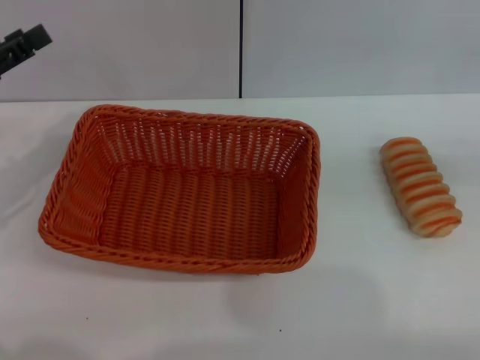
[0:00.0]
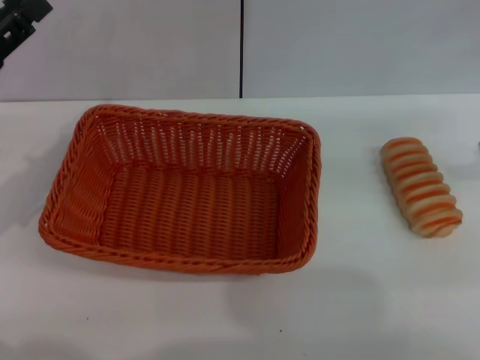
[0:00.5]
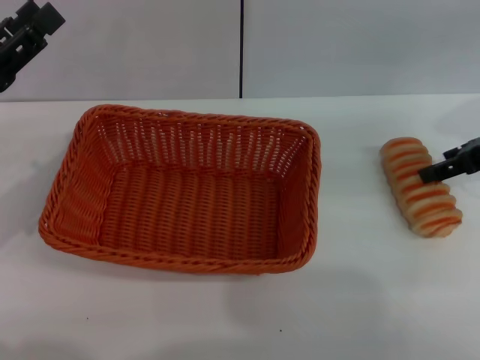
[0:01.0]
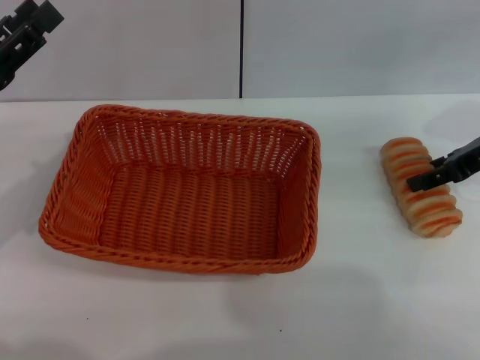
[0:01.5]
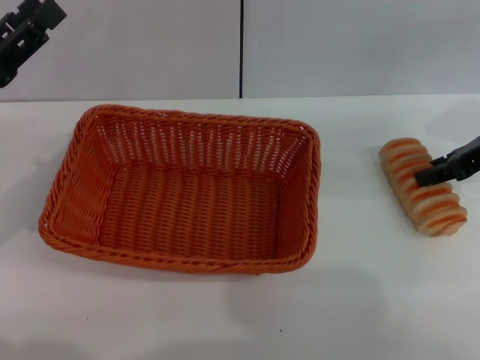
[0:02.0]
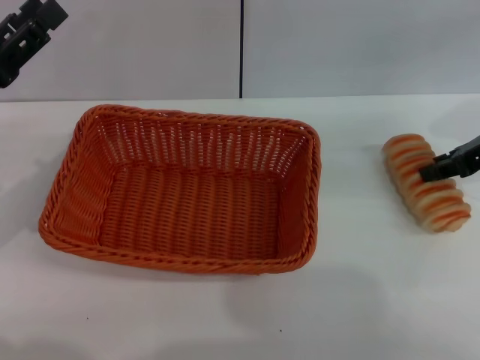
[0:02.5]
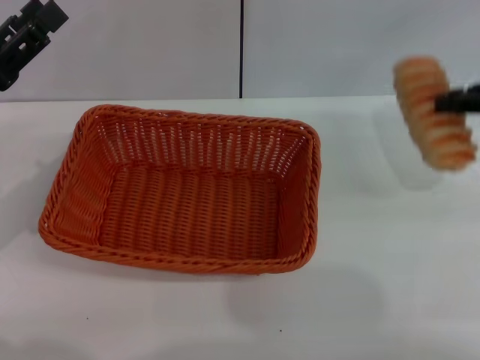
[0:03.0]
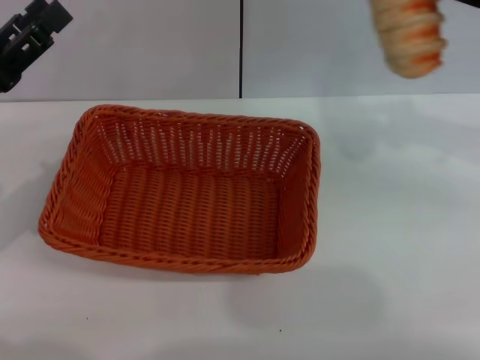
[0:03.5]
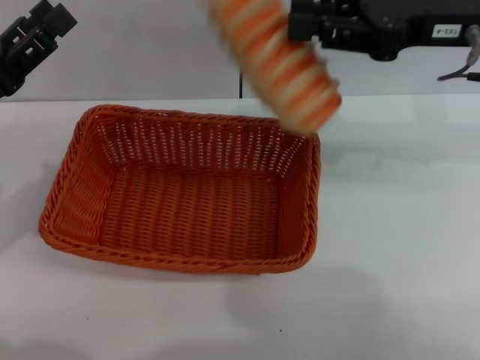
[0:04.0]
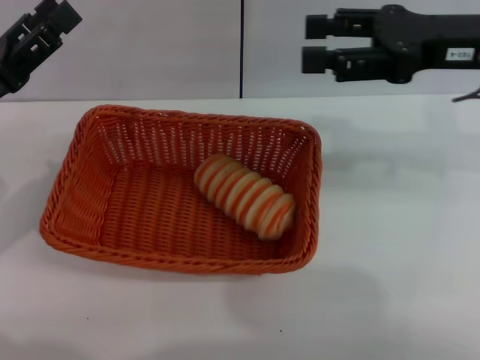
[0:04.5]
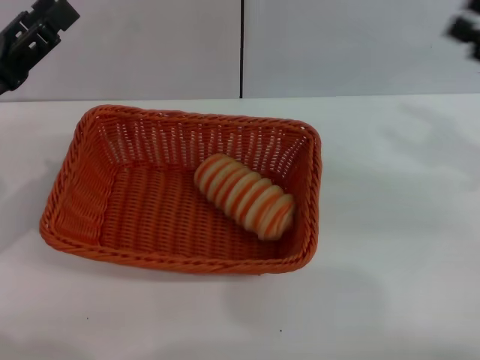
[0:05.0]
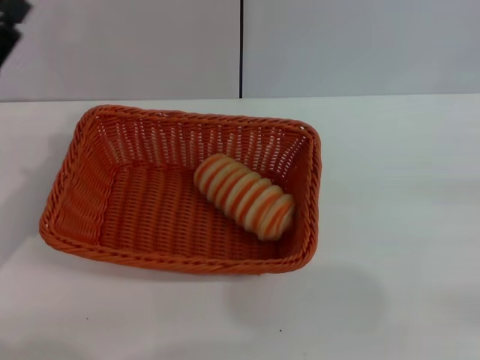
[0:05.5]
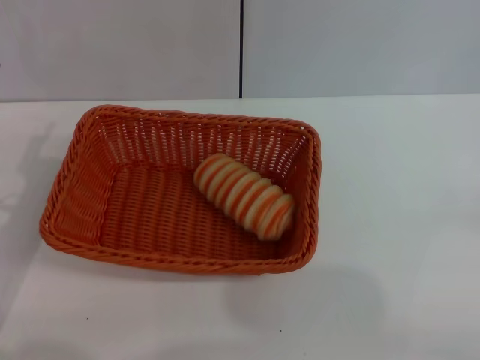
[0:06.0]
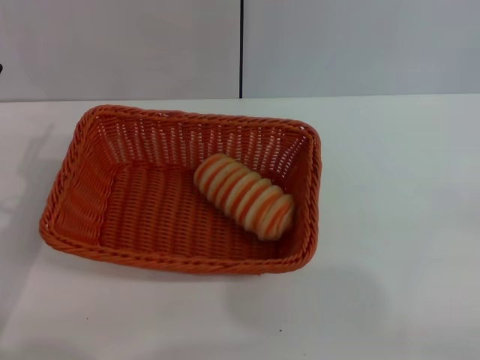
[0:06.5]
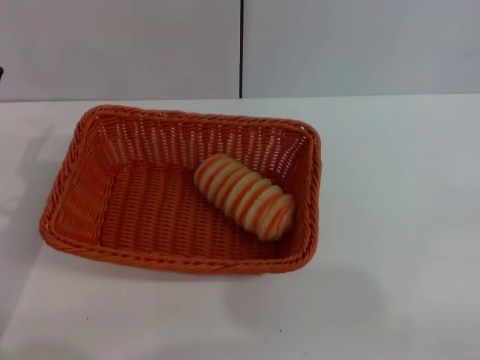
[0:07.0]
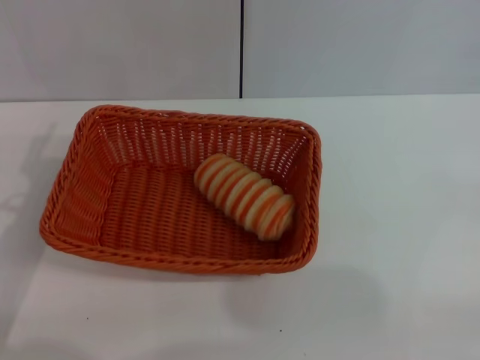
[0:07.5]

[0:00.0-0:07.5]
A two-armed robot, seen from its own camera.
Step, 0:00.0 to 0:02.5: Pick up the long bread with the right gripper.
Step, 0:03.0 to 0:04.0: Place the long bread into the light basket with the right gripper.
0:00.0 to 0:02.0: The right gripper travels to the left and forward by approximately 20 cm, and closes up.
0:02.0 to 0:04.0: The right gripper heads to the left and upward, covering some 10 cm, and closes.
0:04.0 to 0:05.5: The right gripper travels to the right, backward and downward by roughly 30 cm, and opens its fingers.
0:05.5 to 0:07.5: The left gripper changes place by roughly 5 cm.
